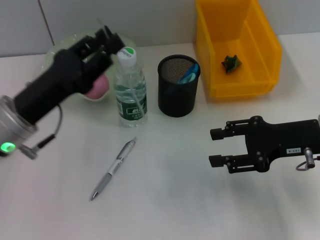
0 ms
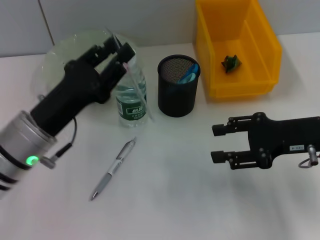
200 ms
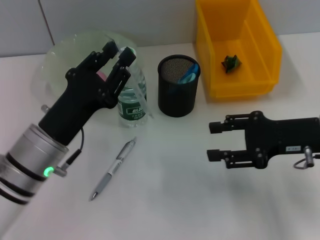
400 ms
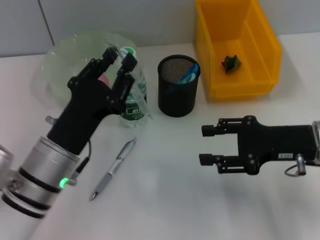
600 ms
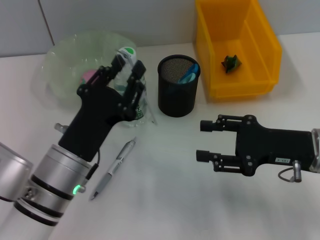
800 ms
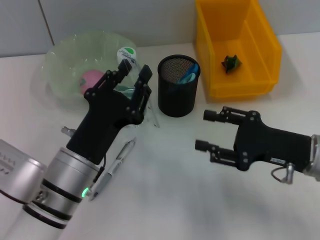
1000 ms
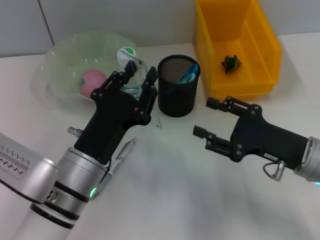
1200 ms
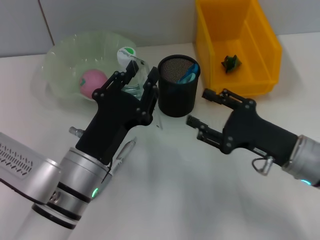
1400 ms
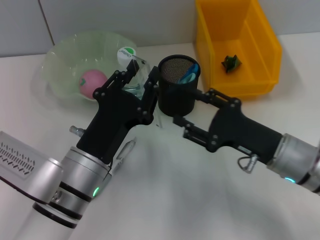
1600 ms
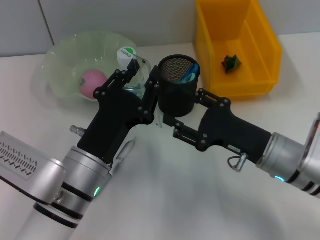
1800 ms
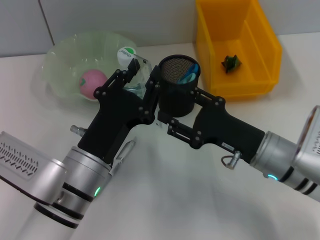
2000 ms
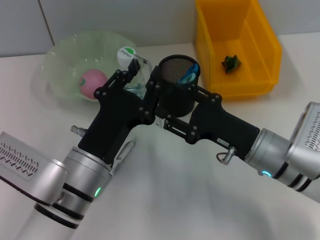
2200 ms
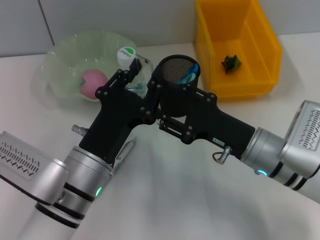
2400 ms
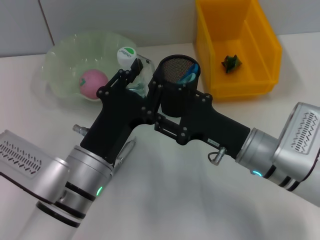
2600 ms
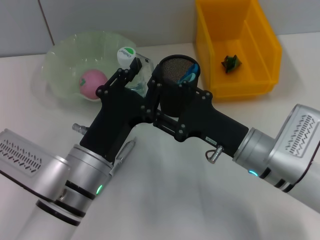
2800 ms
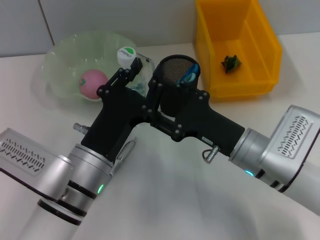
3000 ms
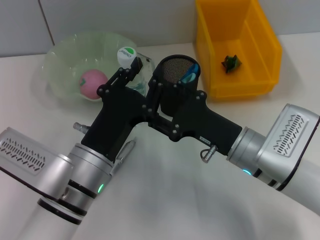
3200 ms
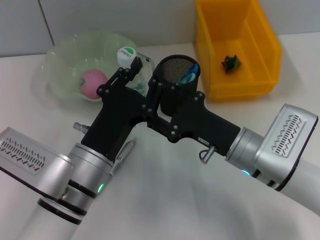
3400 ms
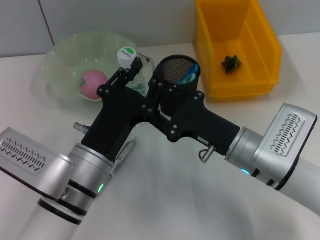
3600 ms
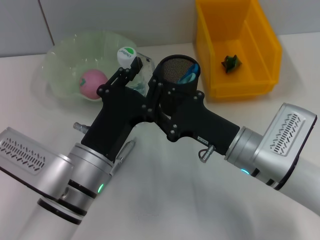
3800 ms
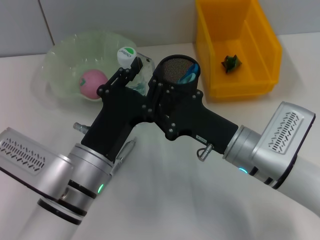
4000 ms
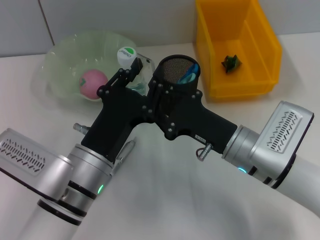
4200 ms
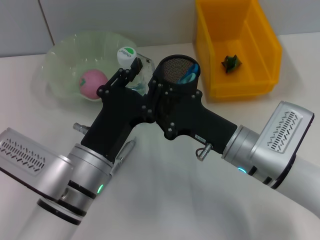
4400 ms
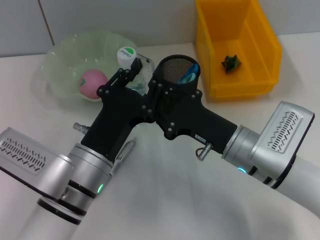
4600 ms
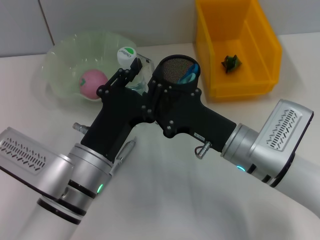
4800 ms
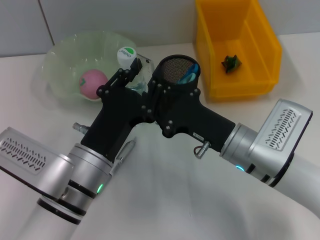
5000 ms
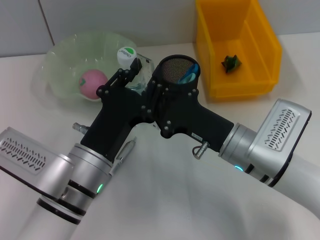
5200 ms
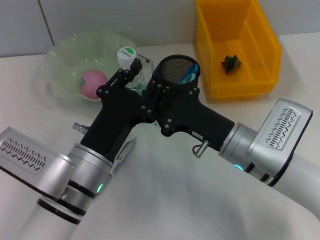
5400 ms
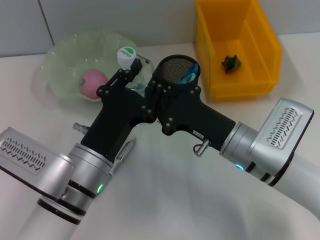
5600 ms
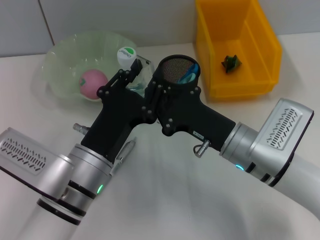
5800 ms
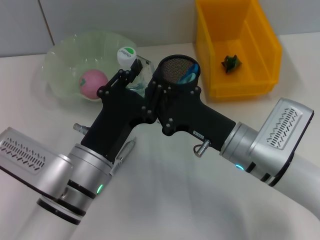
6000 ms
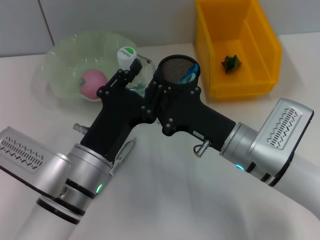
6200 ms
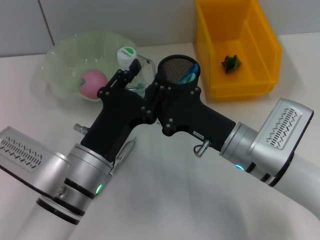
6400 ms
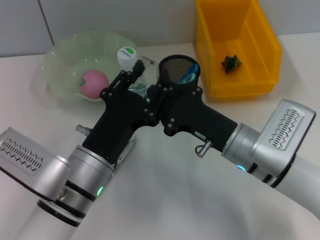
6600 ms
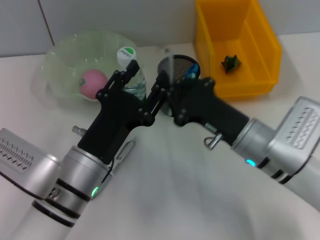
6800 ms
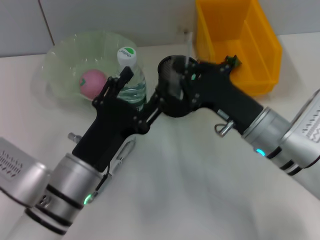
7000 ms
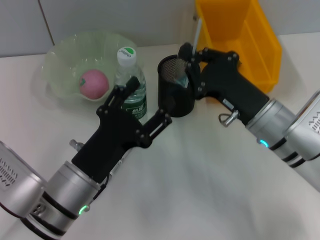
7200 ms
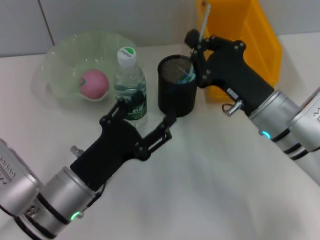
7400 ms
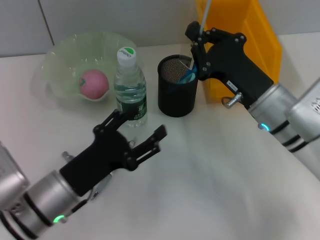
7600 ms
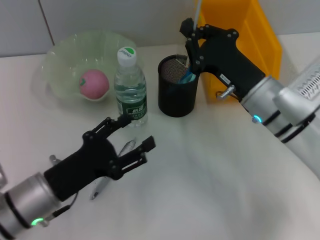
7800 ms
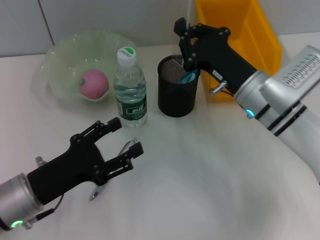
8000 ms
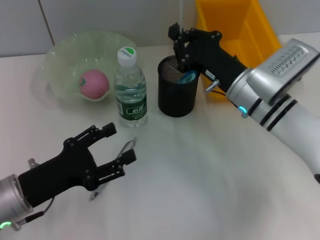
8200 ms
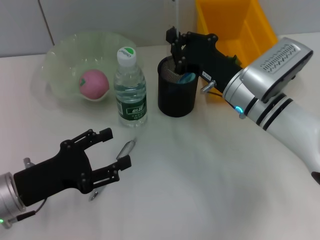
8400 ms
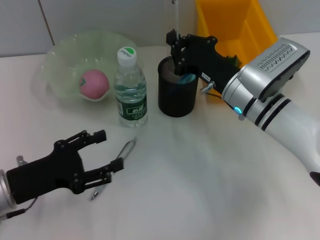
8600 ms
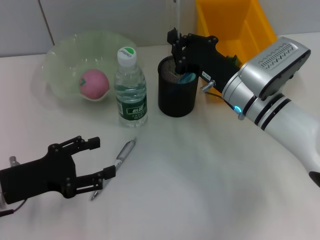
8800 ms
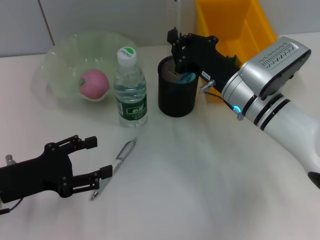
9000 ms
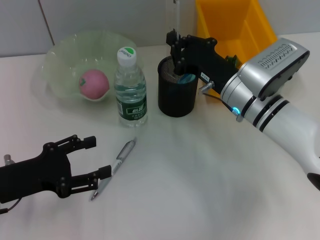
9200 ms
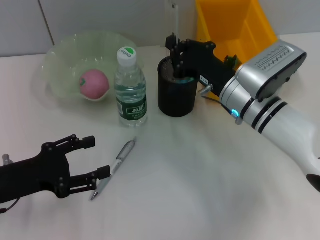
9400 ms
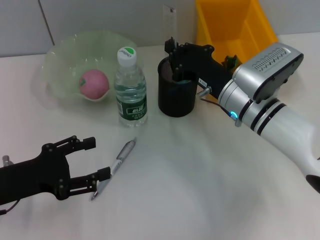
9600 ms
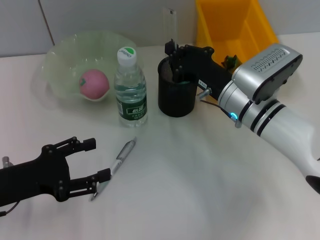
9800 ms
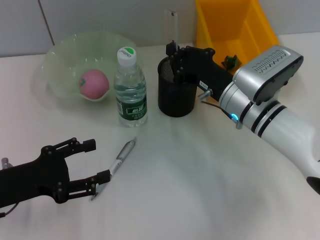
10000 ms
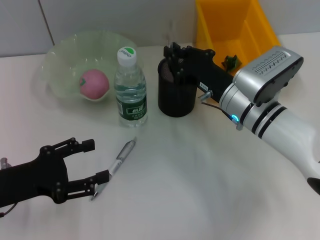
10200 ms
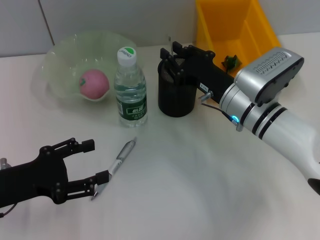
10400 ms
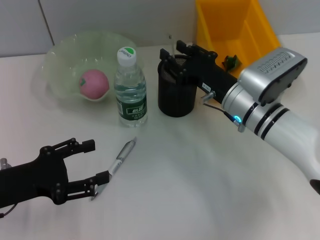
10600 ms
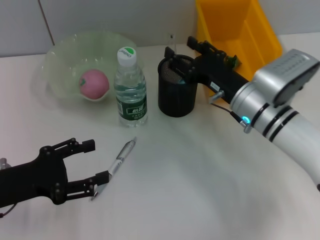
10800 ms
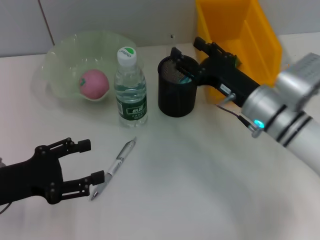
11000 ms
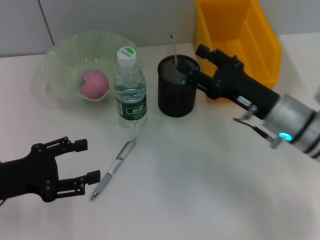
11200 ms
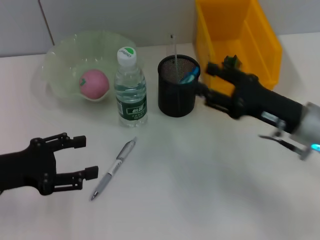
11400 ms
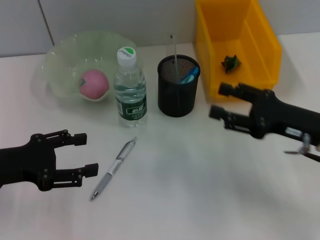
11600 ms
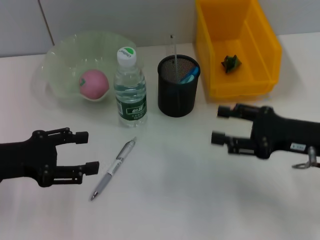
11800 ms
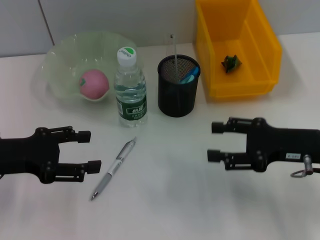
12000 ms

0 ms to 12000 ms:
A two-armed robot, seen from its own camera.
Step, 0 ms to 6200 ms: Pass the ruler from the left hand to the right hand.
Step, 6400 ms to 10400 ms: Place the ruler into the pen holder with the right hand.
0 ms to 1600 ms: The left gripper travels to the right and backward by approximately 10 cm; the right gripper goes some 10 cm downward and to the left.
1600 ms to 3000 ms: The right gripper heads to the left, covering about 5 cm.
3000 ms to 4400 ms: Both grippers stay about where they are.
4400 ms to 6000 ms: Both grippers stay about where they are.
6000 ms to 7600 ms: The right gripper shifts by about 5 cm. The left gripper opens its fingers.
7600 ms to 9000 ms: The left gripper shifts roughly 10 cm to the left. The right gripper ends up roughly 5 cm from where it was.
9000 ms to 10400 ms: The grippers move only a little.
10400 ms to 12000 ms: The left gripper shifts about 5 cm upward; the right gripper travels to the right and backward by roughly 15 cm, and opens.

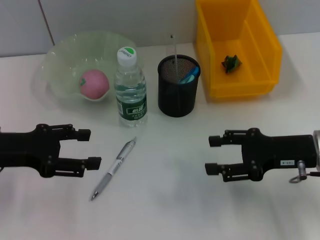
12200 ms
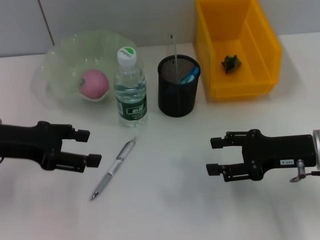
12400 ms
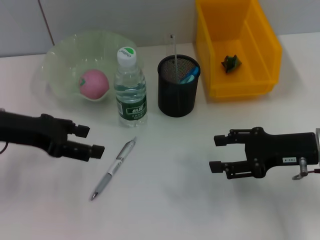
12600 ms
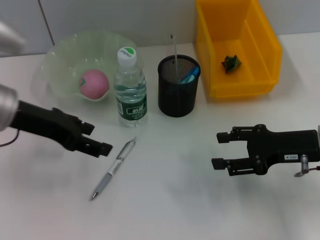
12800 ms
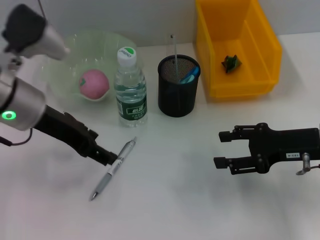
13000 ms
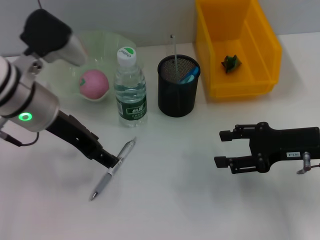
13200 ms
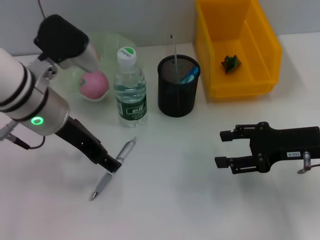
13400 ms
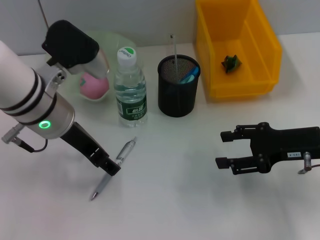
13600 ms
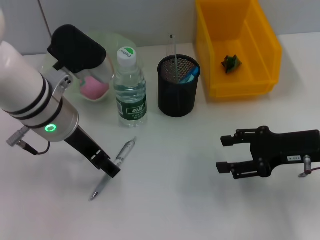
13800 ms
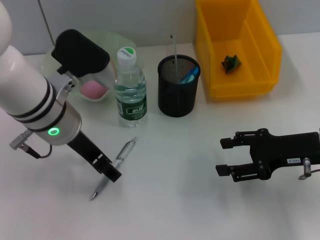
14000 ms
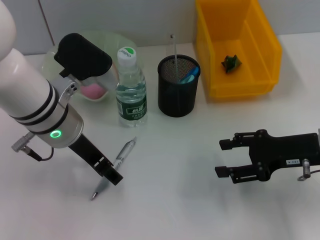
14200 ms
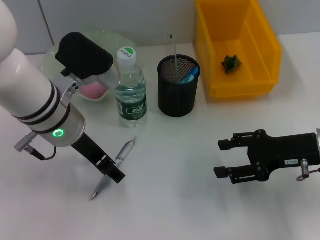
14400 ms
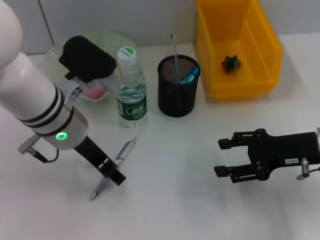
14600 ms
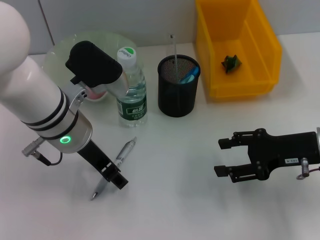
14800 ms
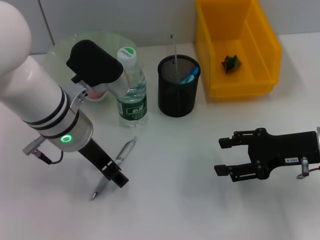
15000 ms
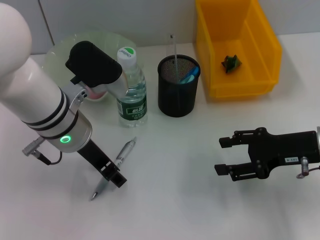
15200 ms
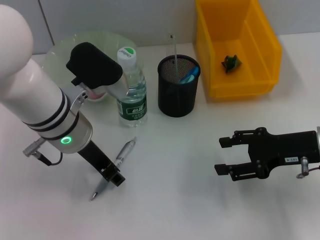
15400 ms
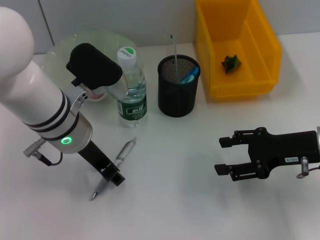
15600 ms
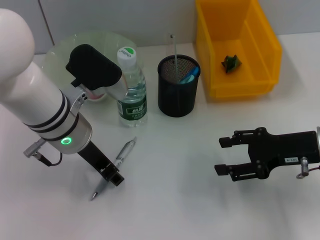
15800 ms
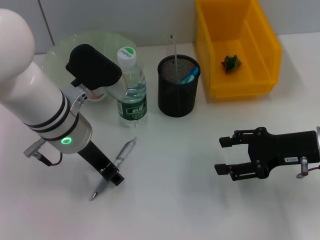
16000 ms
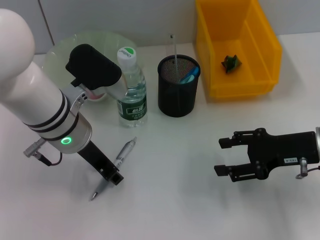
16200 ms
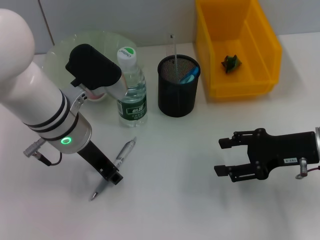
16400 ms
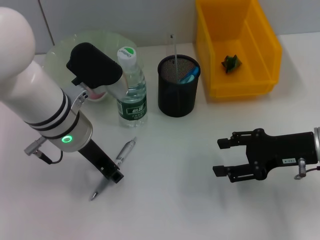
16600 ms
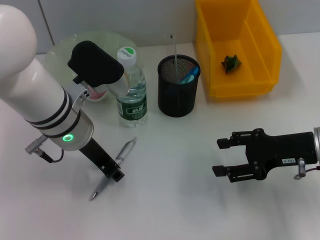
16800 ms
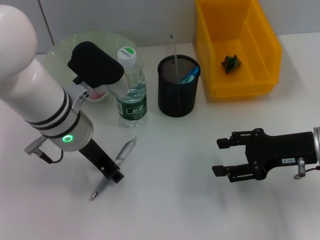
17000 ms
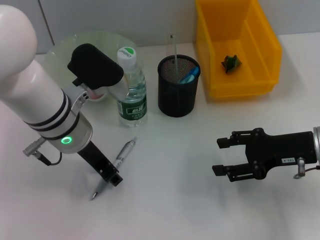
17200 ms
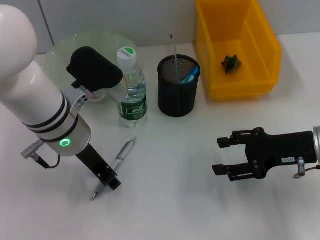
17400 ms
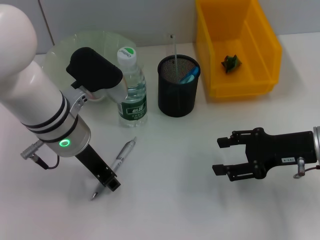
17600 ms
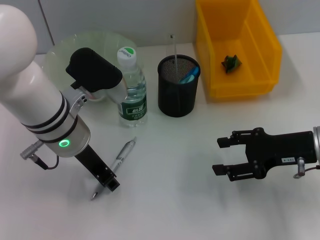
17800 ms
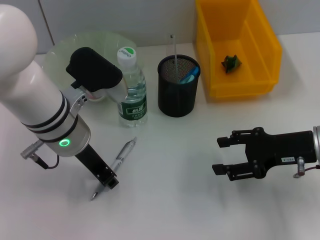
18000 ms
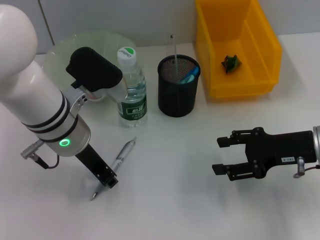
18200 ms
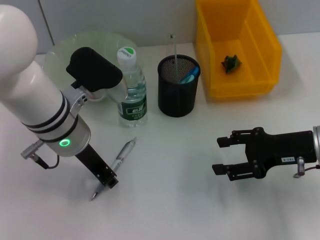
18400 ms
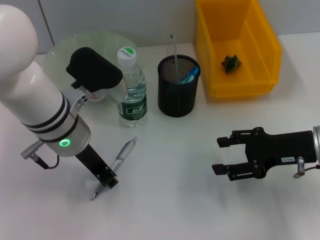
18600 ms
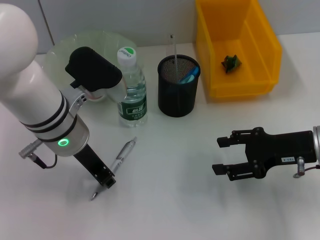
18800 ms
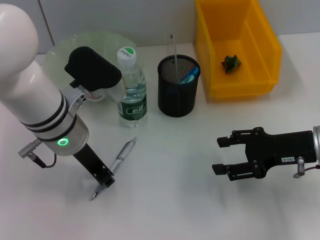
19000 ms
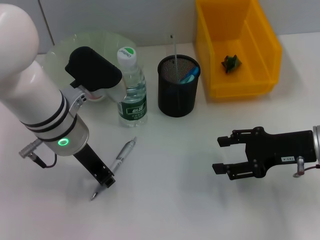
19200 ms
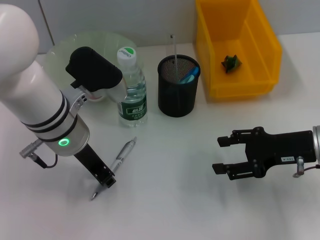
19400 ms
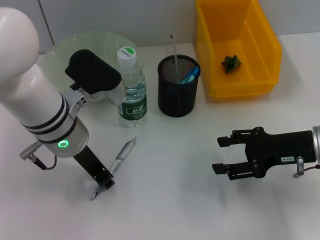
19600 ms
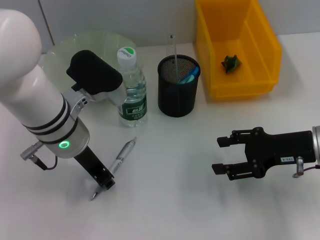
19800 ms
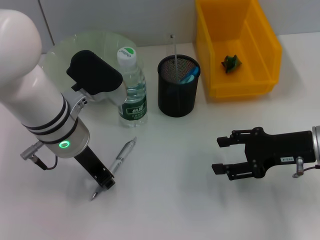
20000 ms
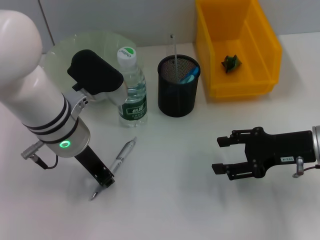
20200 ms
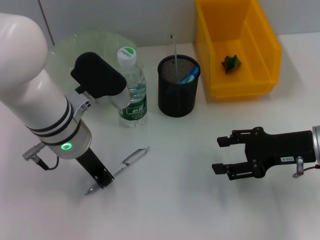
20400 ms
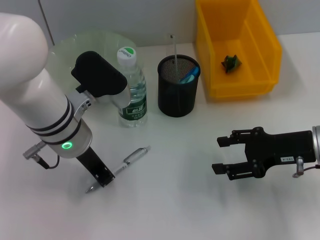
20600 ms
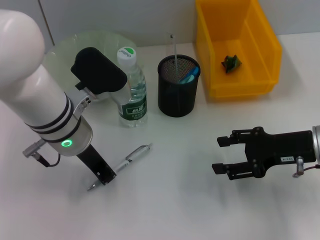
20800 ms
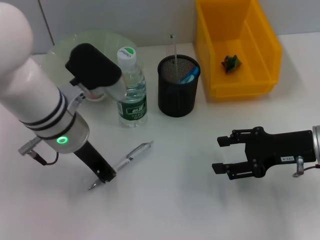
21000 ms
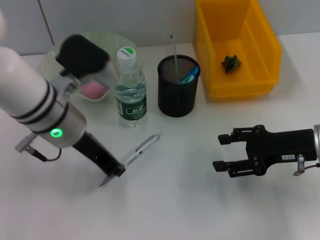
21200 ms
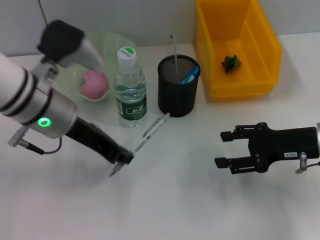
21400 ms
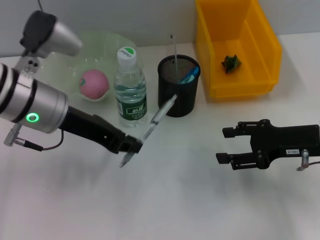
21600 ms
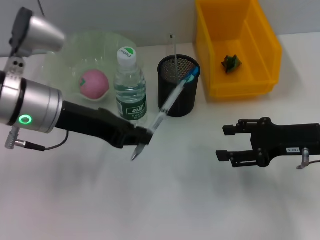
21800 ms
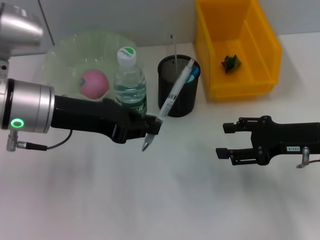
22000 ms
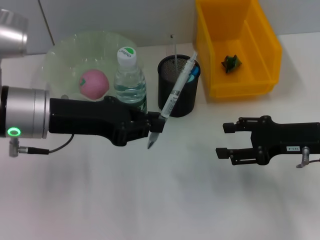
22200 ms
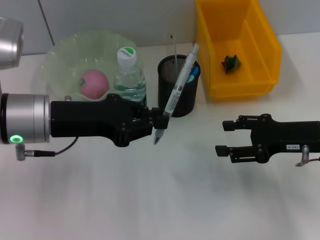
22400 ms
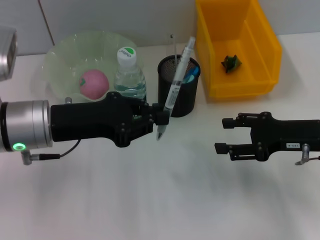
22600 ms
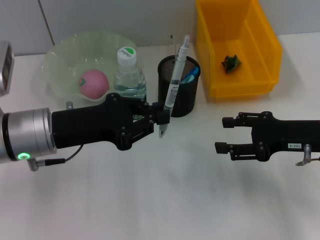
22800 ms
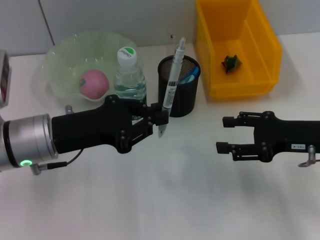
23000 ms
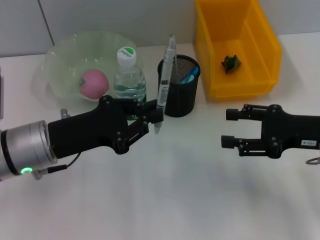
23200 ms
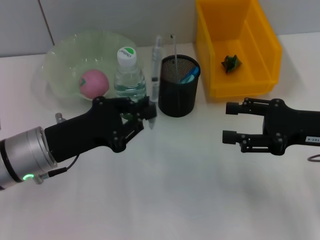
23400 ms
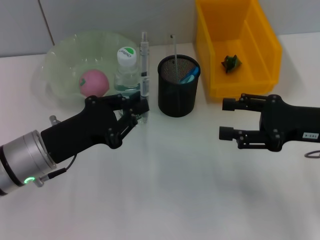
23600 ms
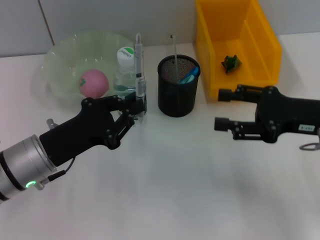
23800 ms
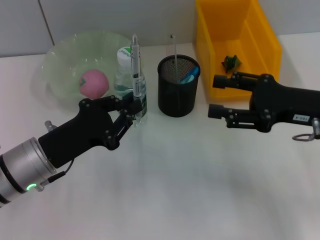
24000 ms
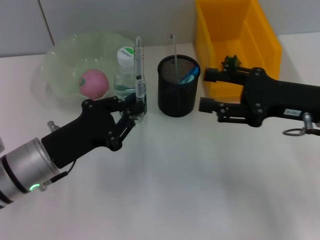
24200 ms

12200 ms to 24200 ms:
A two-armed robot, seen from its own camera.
Step, 12200 ms to 20600 ms: Grab the gray spring-action pen with the left hand.
12200 ms to 13800 ms: The left gripper heads to the right, covering roughly 15 cm.
13800 ms to 15200 ms: The grippers stay close to where they were, moving slightly.
15200 ms to 19800 ms: Both grippers stay about where they are.
19800 ms to 21200 ms: There are only small adjustments of the grippers.
21200 ms to 22600 ms: The left gripper goes some 5 cm to the left.
22600 ms to 24200 ms: The left gripper is displaced downward by about 10 cm. The right gripper ends up roughly 5 cm from where it was.
